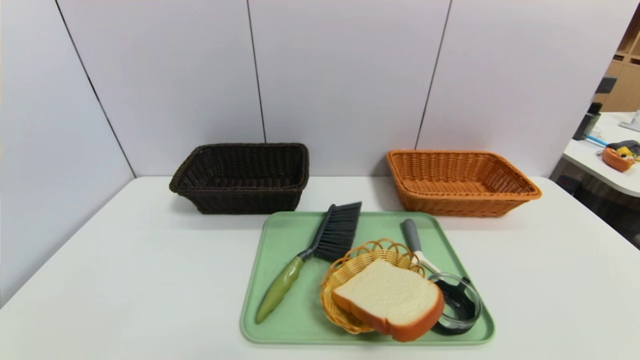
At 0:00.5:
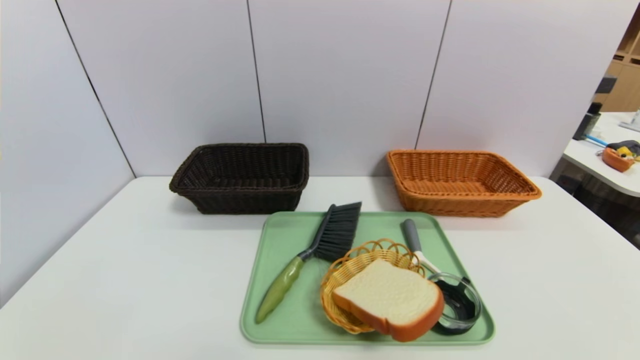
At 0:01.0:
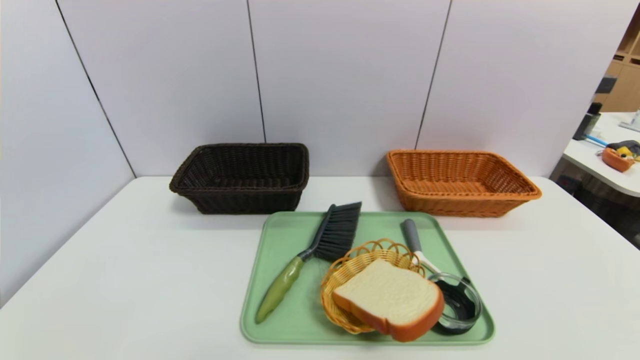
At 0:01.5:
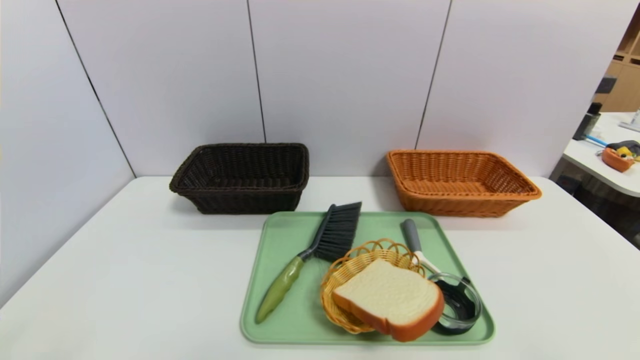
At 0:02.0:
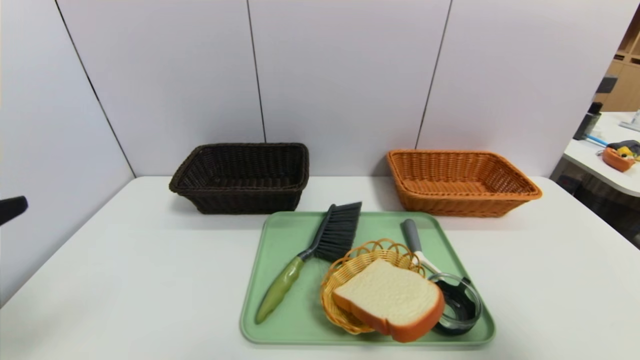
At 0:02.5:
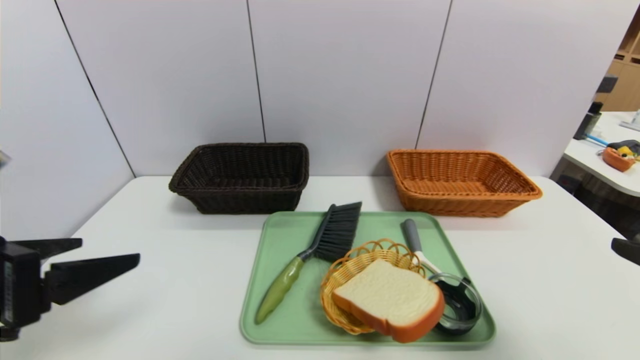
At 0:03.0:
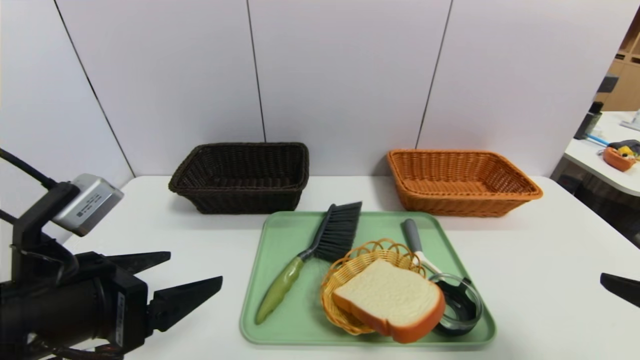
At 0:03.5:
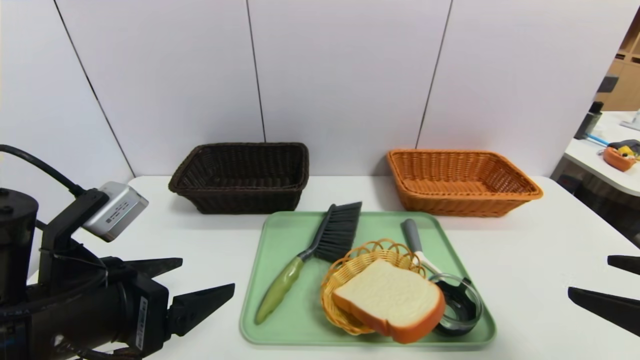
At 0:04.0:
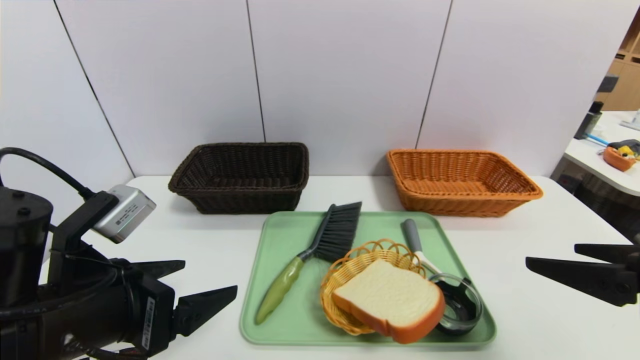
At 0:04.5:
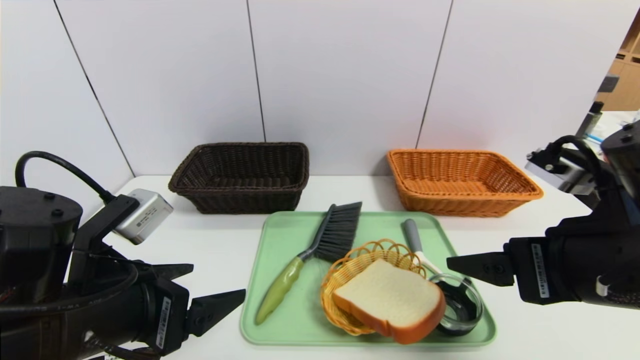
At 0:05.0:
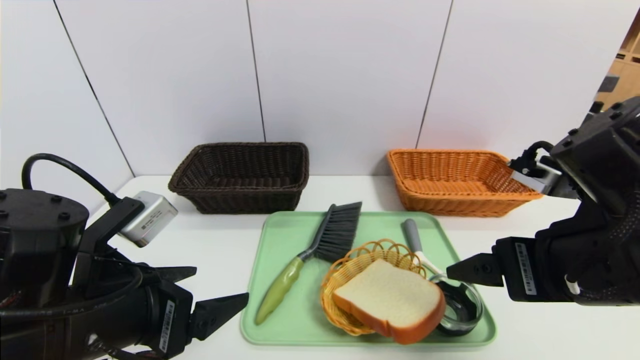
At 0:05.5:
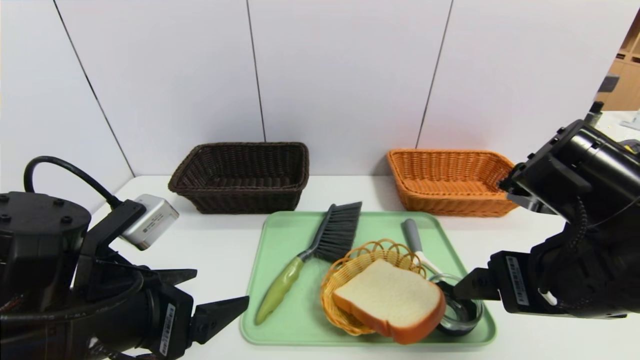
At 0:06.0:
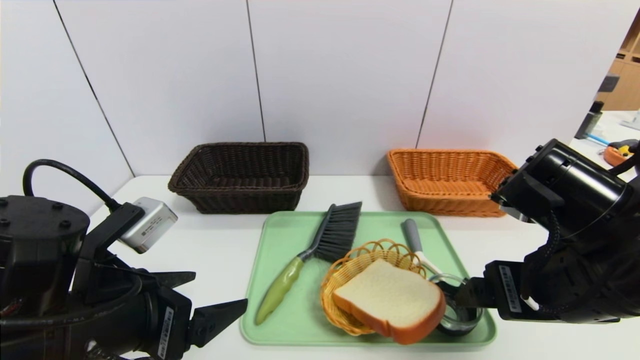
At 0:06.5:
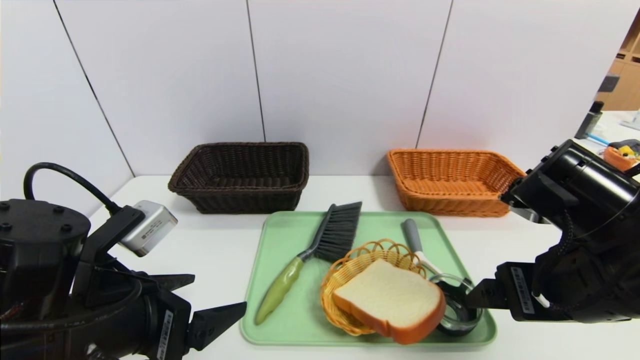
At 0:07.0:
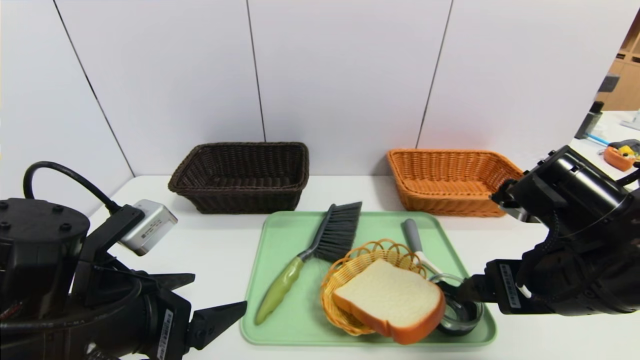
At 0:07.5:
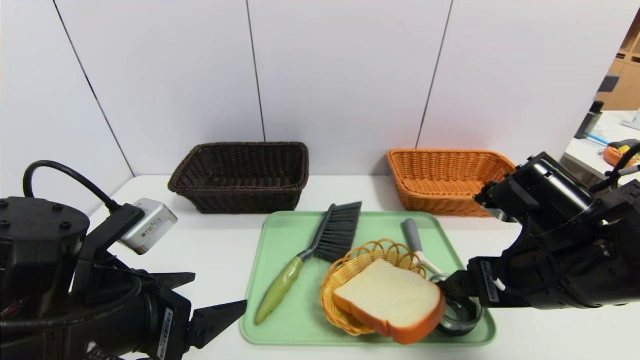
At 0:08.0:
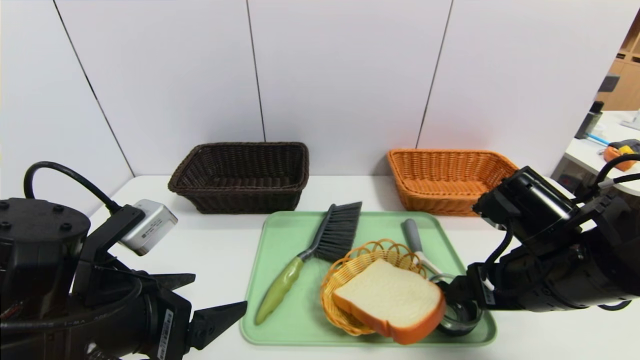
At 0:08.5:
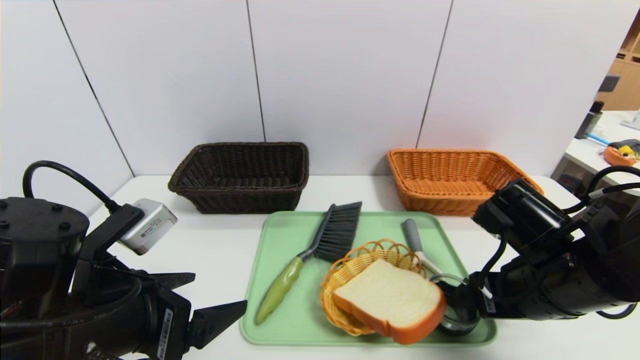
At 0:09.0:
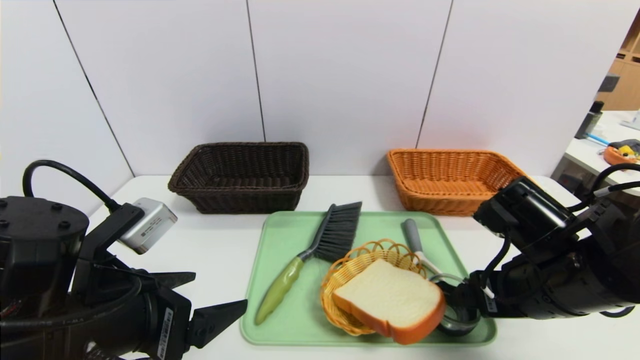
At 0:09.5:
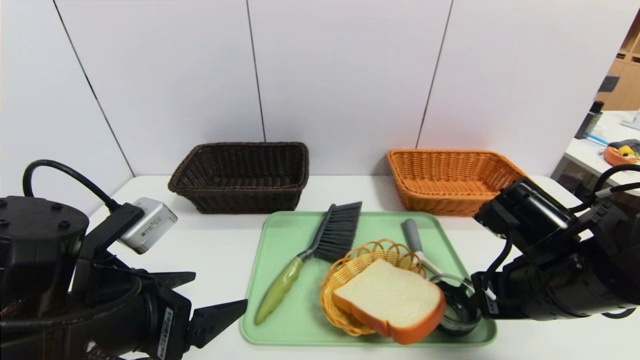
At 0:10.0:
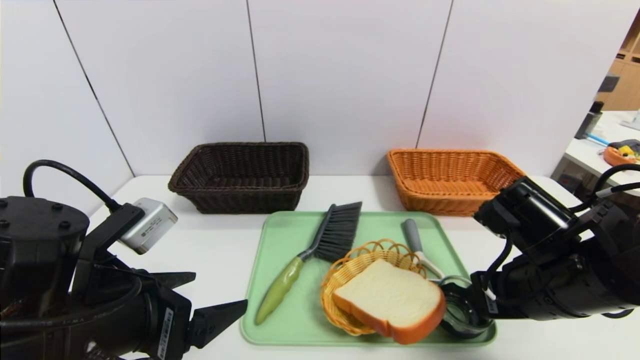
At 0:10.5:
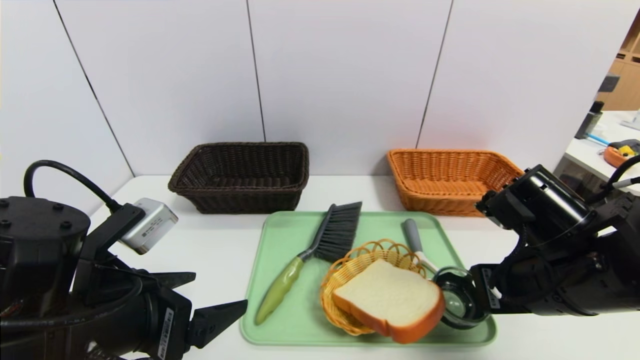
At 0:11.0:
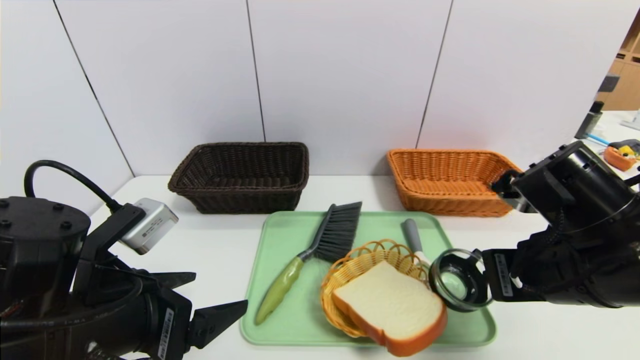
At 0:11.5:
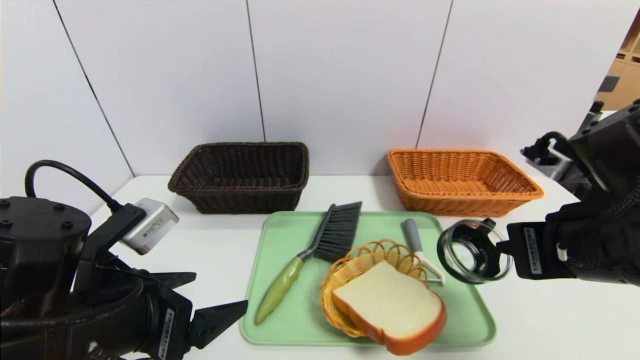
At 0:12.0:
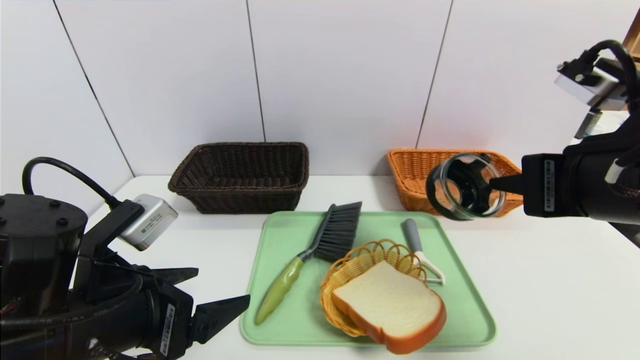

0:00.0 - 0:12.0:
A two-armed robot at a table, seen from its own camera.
Task of the whole recording: place the food in the right basket with the right gripper, and place the non food items in the left basket with the left gripper.
0:00.0 - 0:02.0: Both grippers move upward, roughly 20 cm.
0:02.0 - 0:04.0: The right gripper goes roughly 5 cm forward. The left gripper moves downward, to the right and forward, approximately 15 cm.
0:04.0 - 0:06.0: The right gripper shifts about 10 cm to the left and forward.
0:06.0 - 0:08.0: The right gripper shifts by roughly 5 cm.
0:08.0 - 0:10.0: The right gripper closes up.
0:10.0 - 0:12.0: The right gripper goes some 15 cm upward.

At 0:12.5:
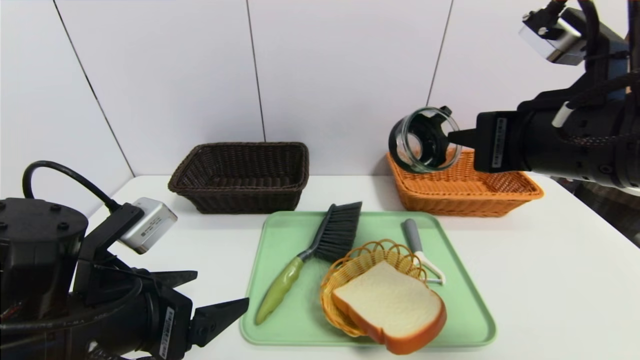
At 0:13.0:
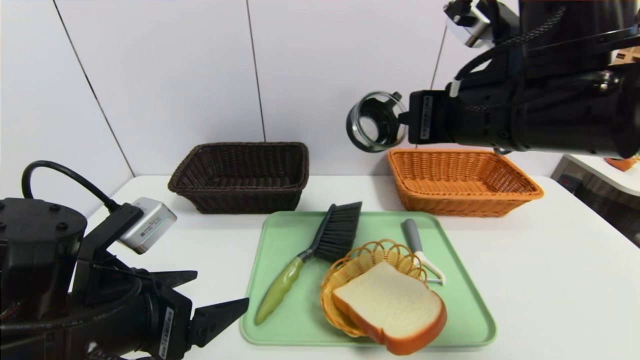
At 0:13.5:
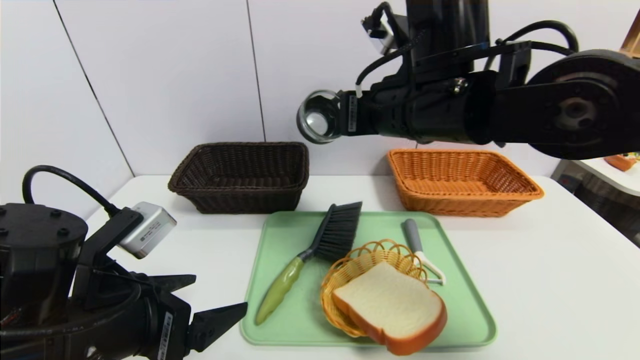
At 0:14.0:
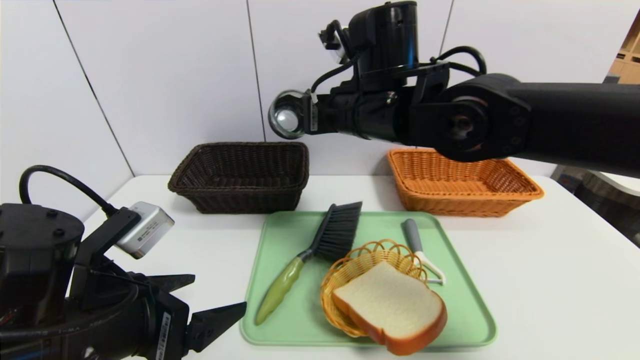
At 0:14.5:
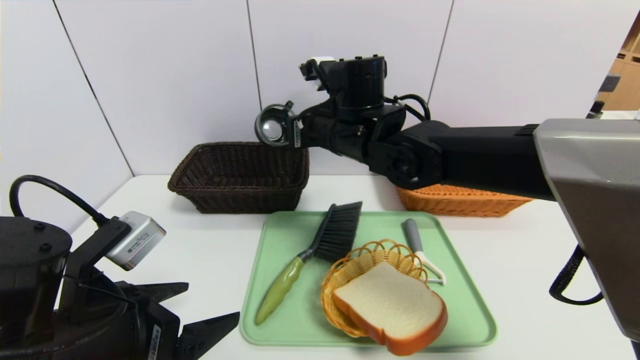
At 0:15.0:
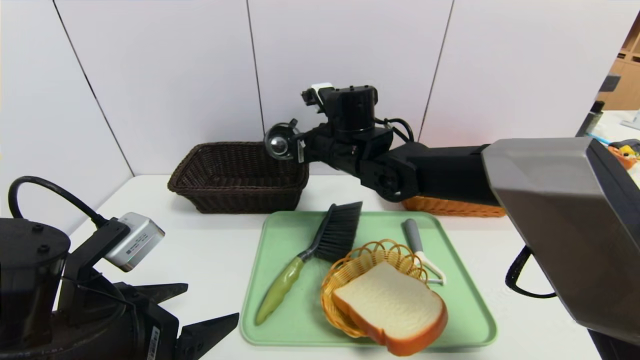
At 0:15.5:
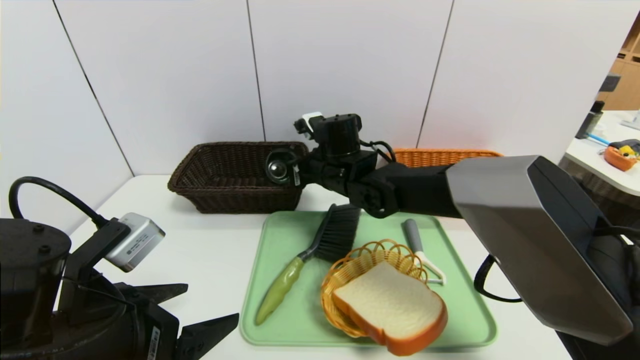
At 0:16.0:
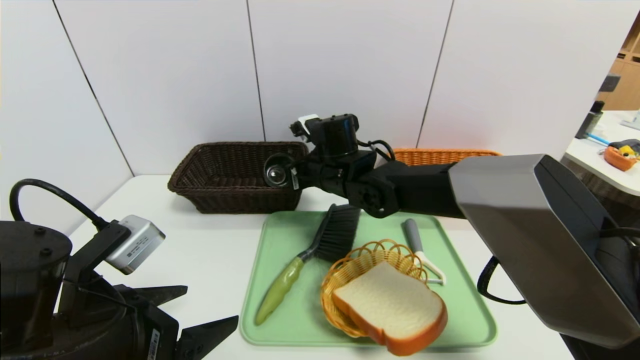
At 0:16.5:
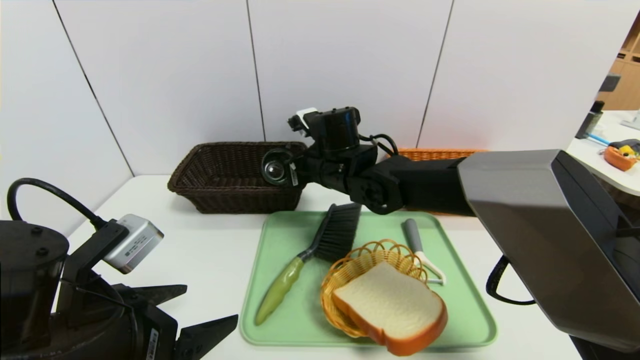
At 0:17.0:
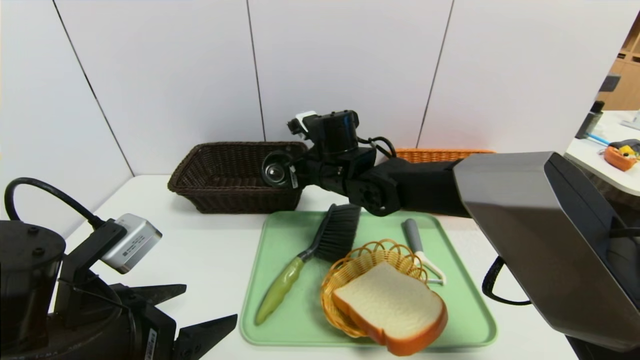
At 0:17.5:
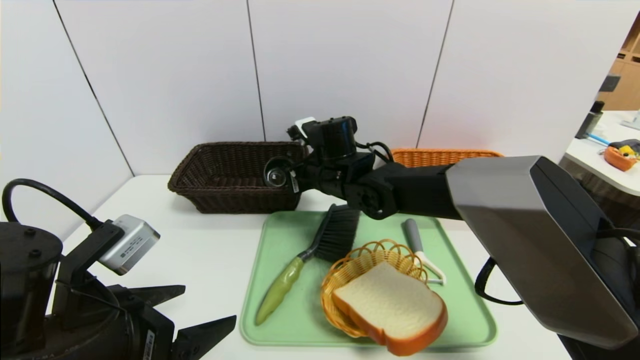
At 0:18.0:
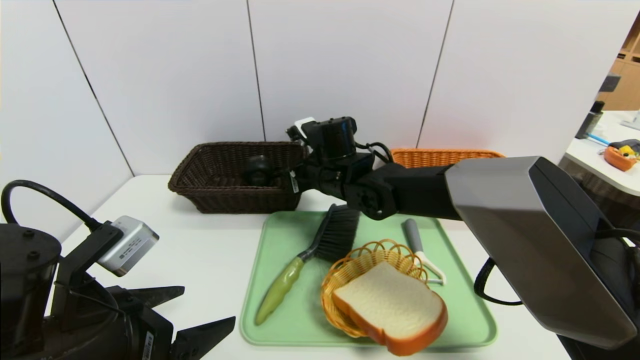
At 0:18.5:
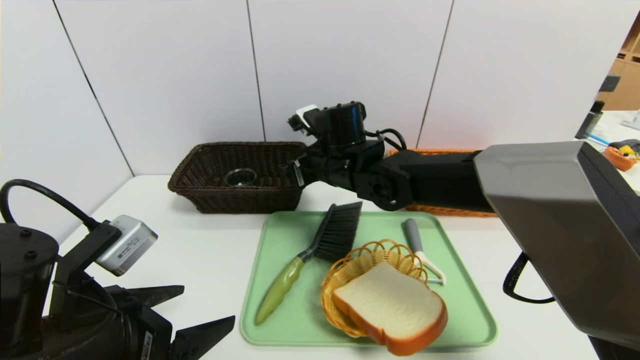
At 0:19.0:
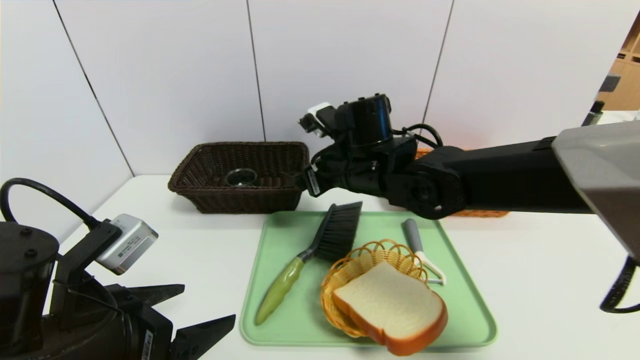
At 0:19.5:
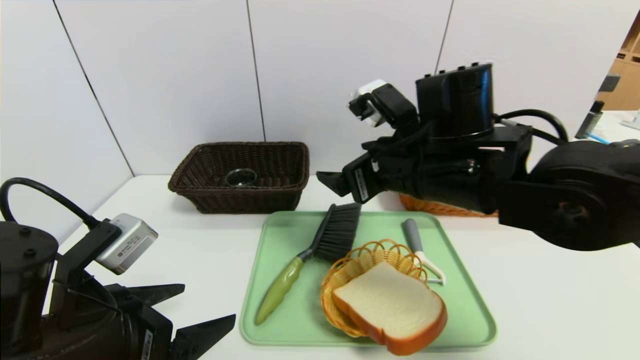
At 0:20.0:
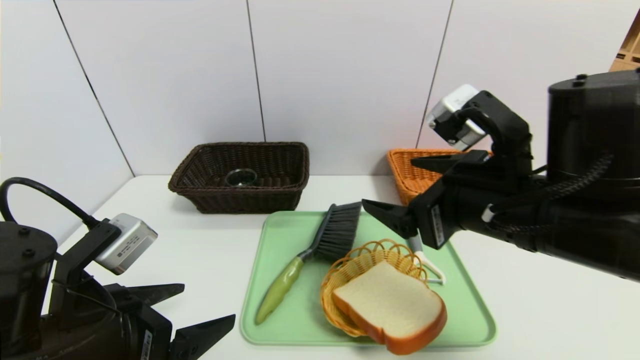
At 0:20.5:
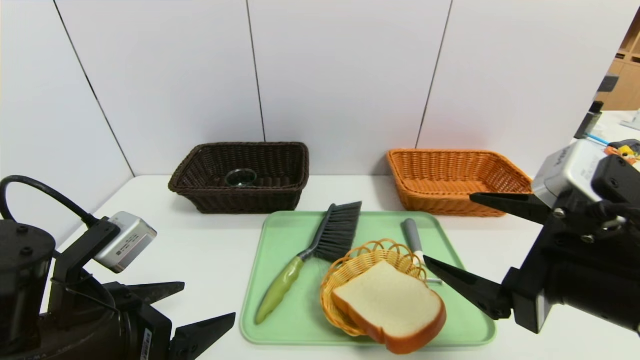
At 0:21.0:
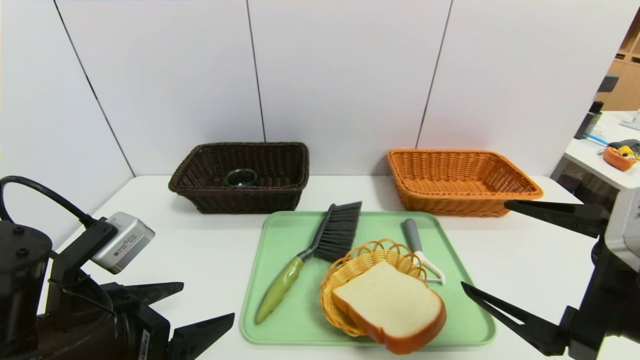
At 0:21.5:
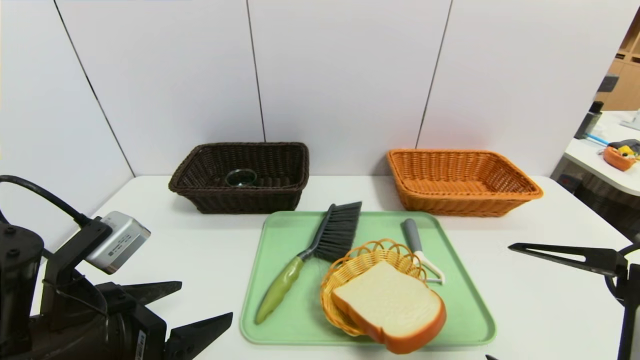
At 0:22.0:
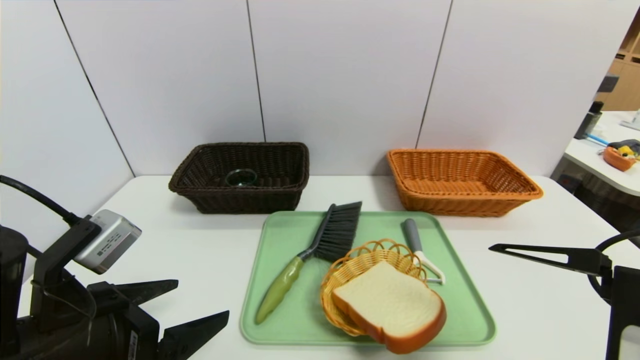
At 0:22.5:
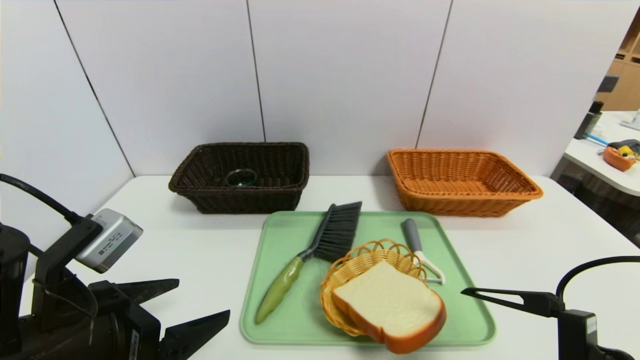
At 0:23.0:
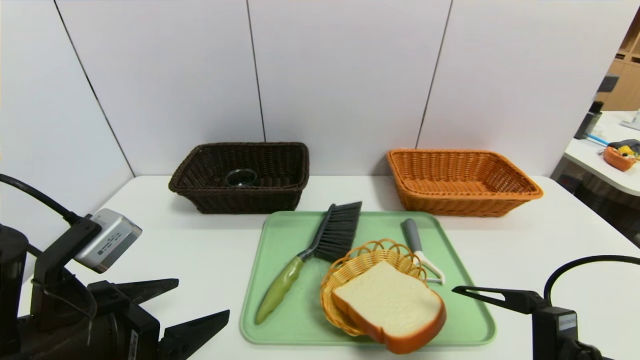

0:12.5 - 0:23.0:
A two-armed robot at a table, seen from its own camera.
Task of the whole recording: place the food in the right basket with the right gripper, and place the non food items in the left basket with the left gripper.
0:12.5 - 0:14.5: The right gripper travels forward and to the left by some 25 cm.
0:14.5 - 0:16.5: The right gripper is displaced downward by roughly 5 cm.
0:16.5 - 0:19.0: The right gripper is displaced backward by roughly 5 cm, and opens.
0:19.0 - 0:21.0: The right gripper is displaced backward and to the right by approximately 30 cm.
0:21.0 - 0:23.0: The right gripper changes place by approximately 5 cm.
